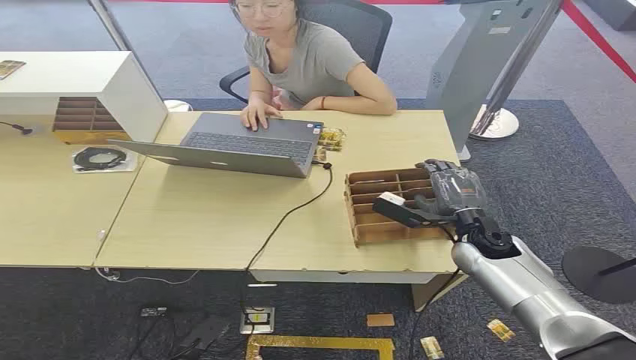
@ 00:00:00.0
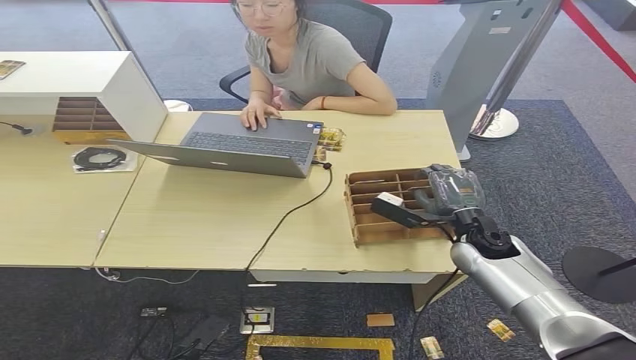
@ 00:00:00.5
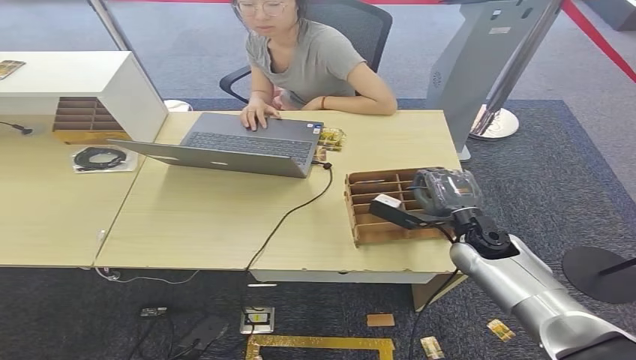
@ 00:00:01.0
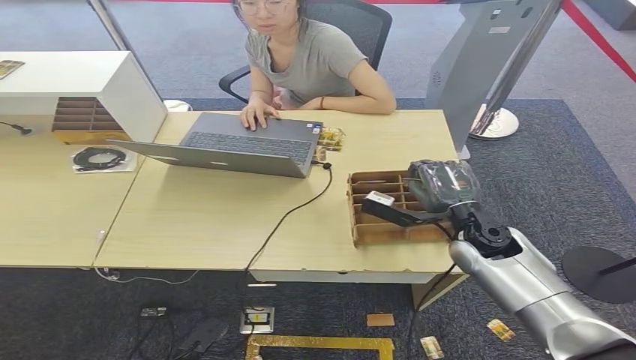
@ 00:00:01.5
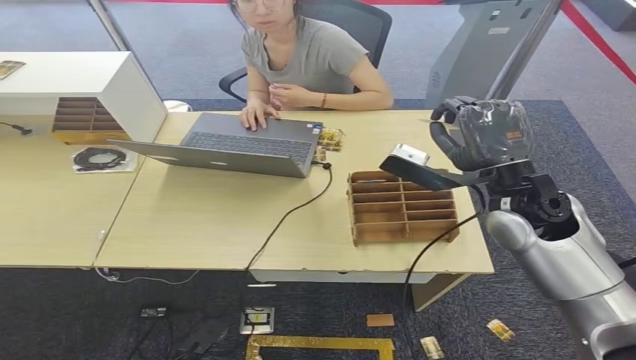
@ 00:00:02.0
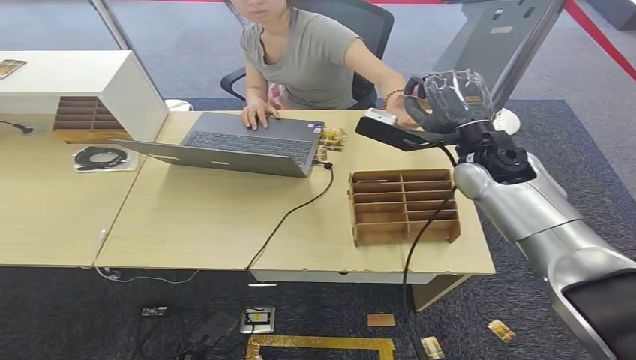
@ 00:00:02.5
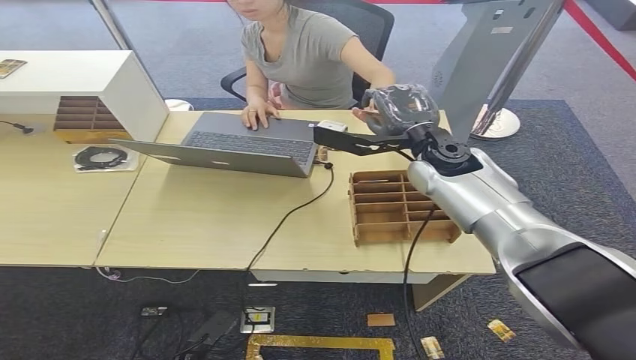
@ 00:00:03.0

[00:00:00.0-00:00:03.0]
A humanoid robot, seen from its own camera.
Step, 00:00:02.0 to 00:00:03.0: Hand the key card to the target.
00:00:01.5 to 00:00:03.0: The right hand heads upward, forward and to the left, covering approximately 15 cm.
